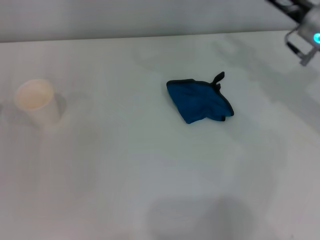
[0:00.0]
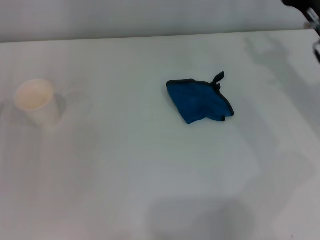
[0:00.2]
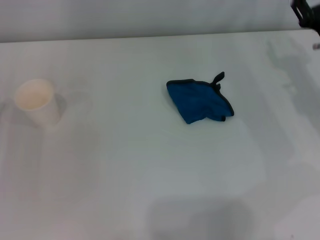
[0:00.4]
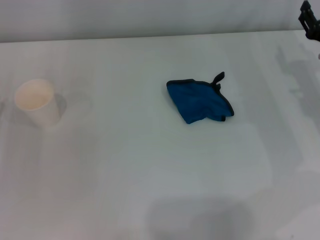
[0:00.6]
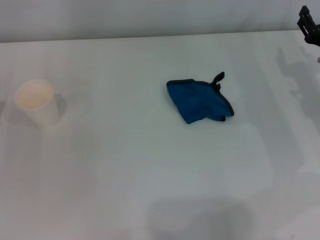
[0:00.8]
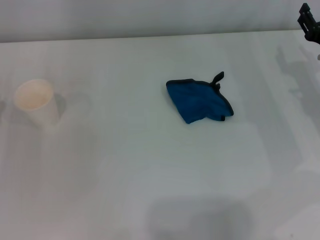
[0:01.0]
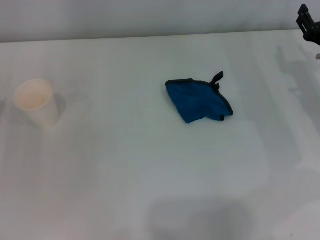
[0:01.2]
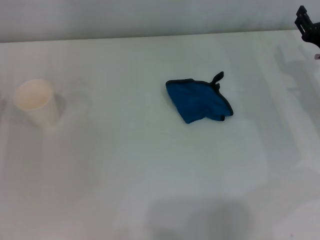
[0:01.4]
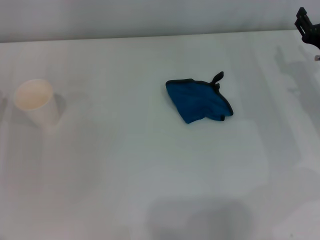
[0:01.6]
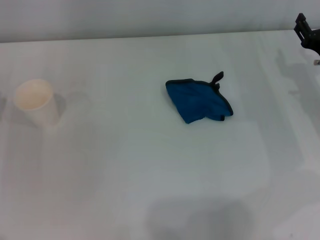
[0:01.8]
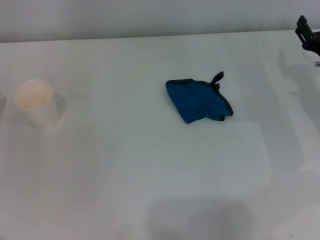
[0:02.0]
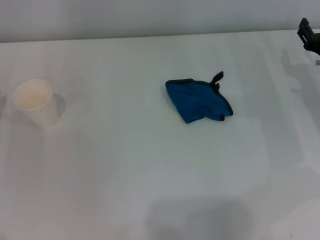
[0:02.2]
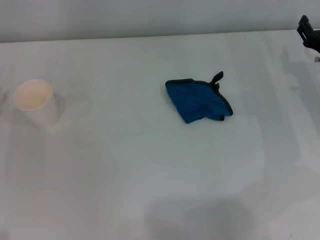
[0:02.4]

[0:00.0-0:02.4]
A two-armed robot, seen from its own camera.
0:00.0 to 0:01.2: The right gripper is displaced downward and to the right by approximately 10 cm.
